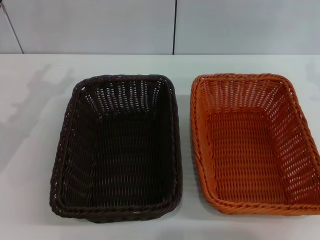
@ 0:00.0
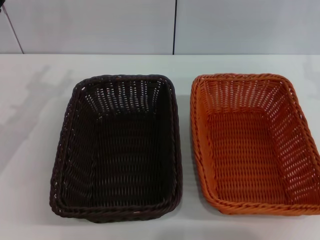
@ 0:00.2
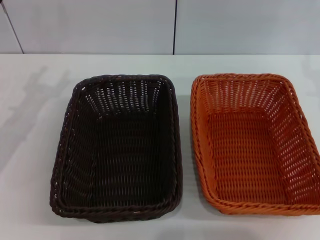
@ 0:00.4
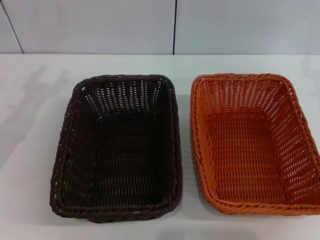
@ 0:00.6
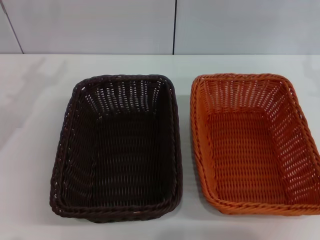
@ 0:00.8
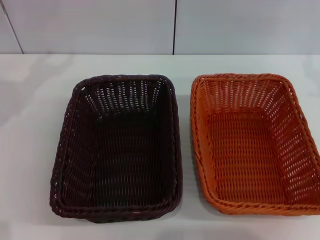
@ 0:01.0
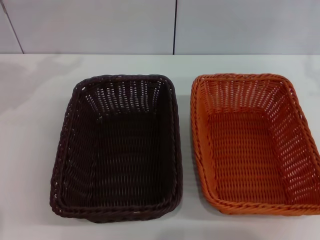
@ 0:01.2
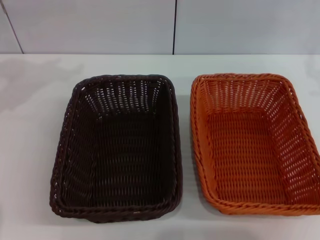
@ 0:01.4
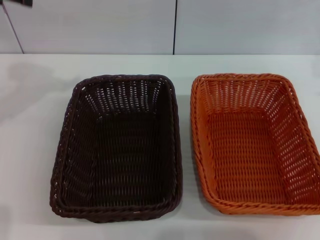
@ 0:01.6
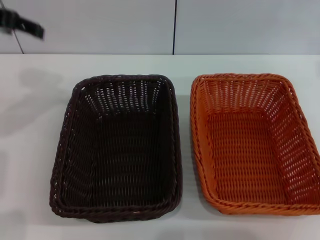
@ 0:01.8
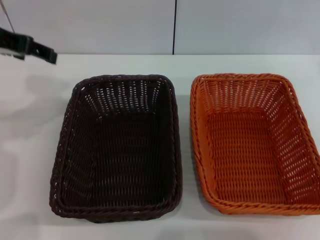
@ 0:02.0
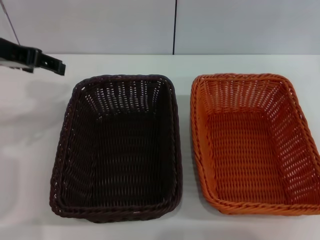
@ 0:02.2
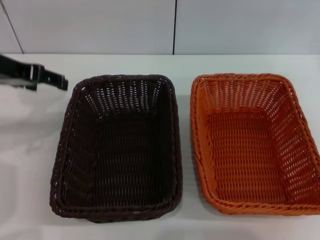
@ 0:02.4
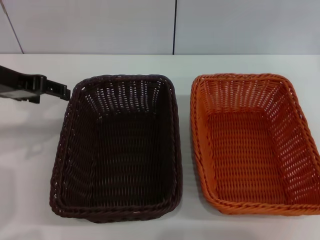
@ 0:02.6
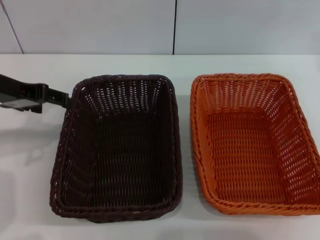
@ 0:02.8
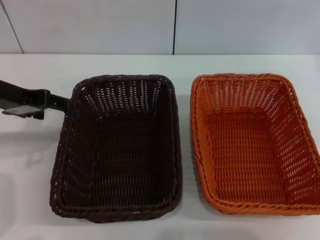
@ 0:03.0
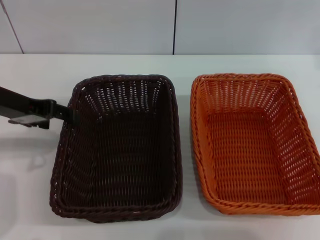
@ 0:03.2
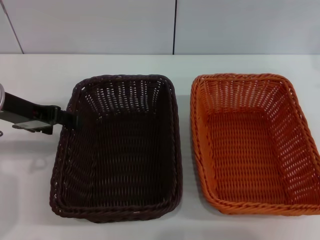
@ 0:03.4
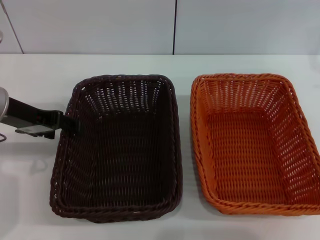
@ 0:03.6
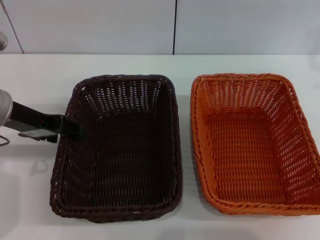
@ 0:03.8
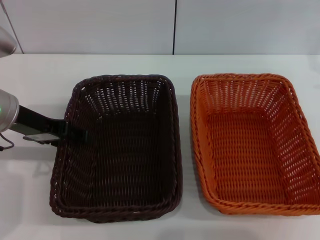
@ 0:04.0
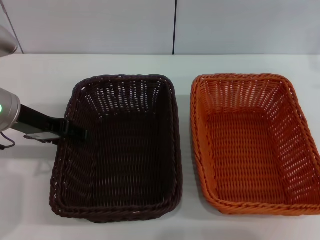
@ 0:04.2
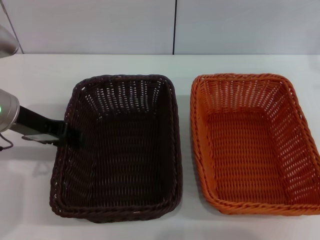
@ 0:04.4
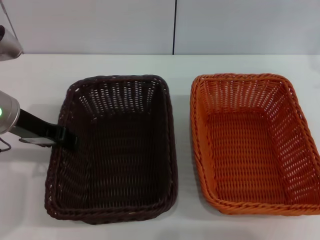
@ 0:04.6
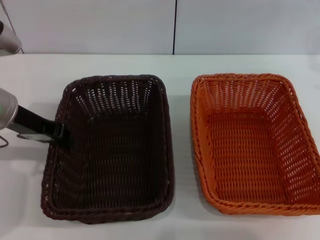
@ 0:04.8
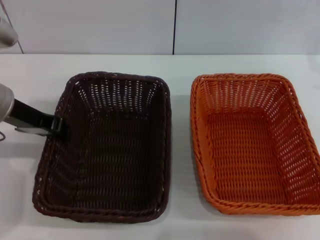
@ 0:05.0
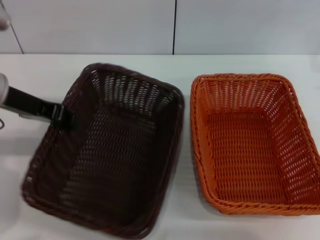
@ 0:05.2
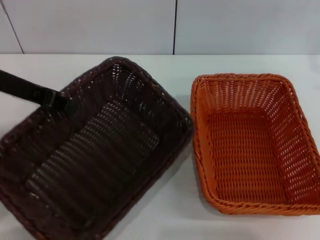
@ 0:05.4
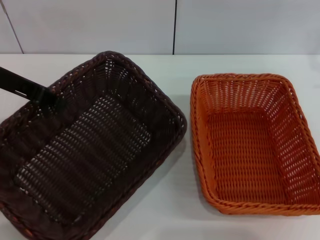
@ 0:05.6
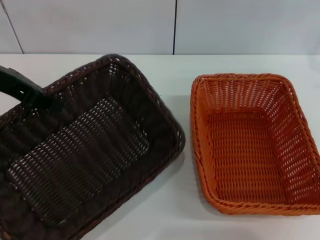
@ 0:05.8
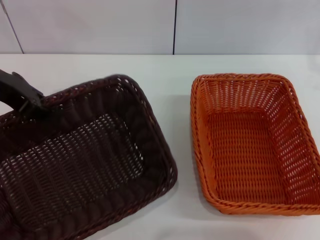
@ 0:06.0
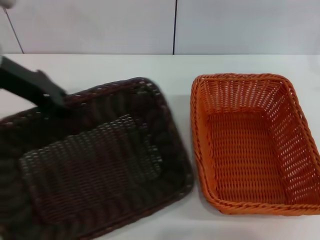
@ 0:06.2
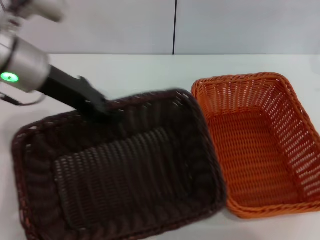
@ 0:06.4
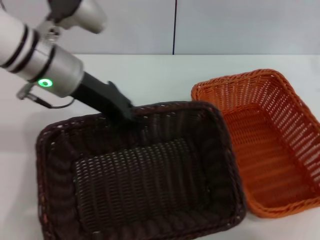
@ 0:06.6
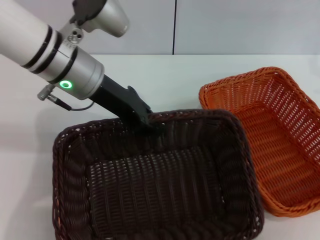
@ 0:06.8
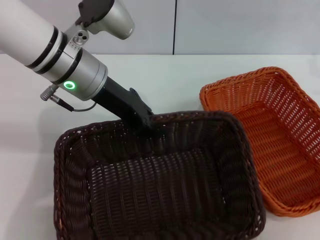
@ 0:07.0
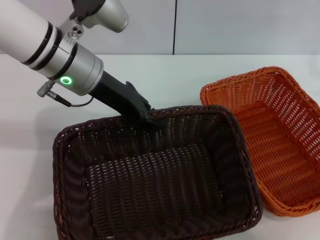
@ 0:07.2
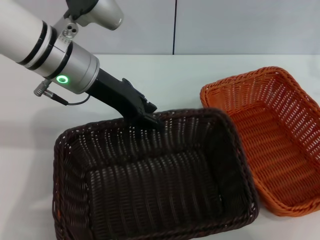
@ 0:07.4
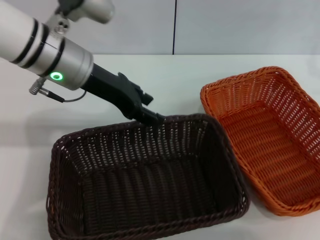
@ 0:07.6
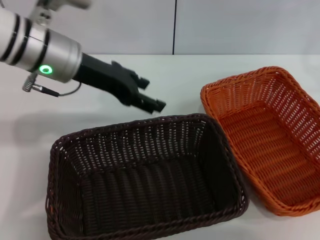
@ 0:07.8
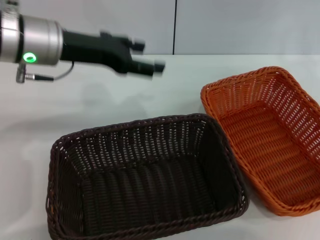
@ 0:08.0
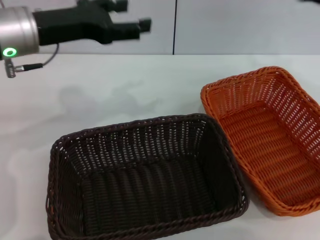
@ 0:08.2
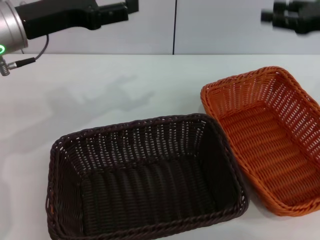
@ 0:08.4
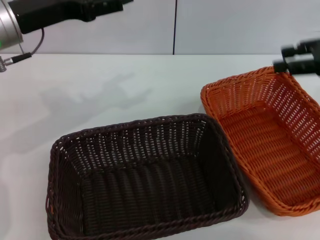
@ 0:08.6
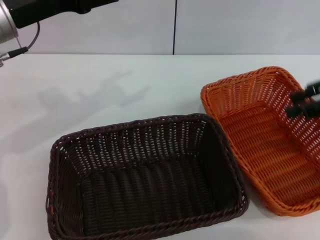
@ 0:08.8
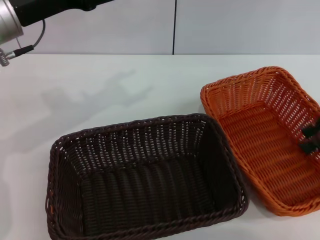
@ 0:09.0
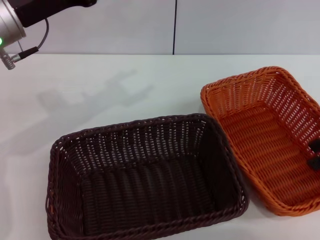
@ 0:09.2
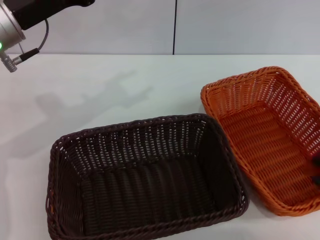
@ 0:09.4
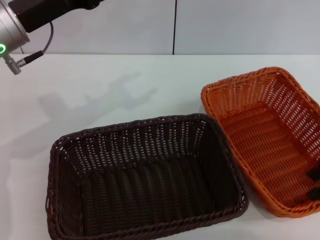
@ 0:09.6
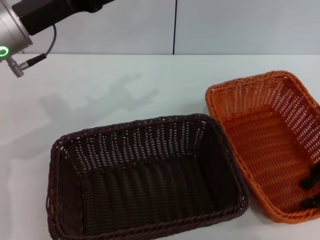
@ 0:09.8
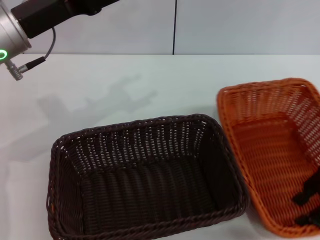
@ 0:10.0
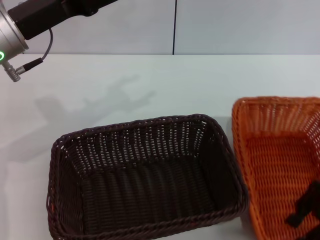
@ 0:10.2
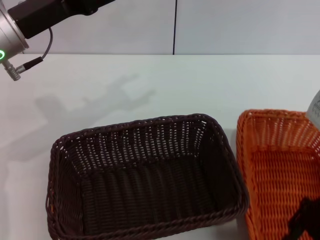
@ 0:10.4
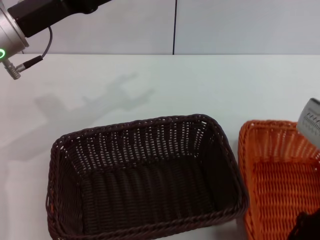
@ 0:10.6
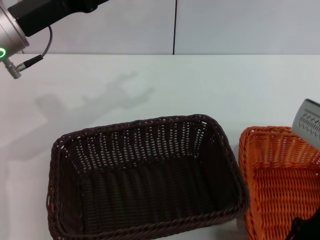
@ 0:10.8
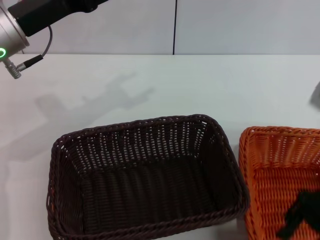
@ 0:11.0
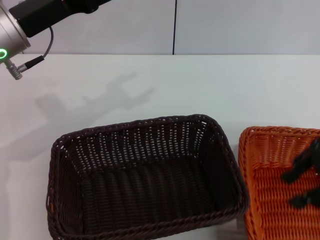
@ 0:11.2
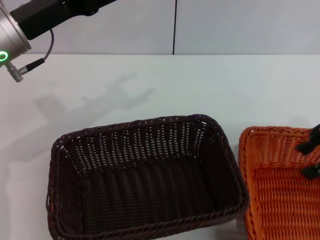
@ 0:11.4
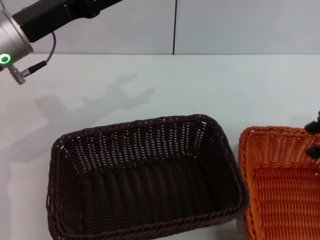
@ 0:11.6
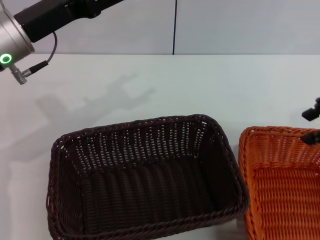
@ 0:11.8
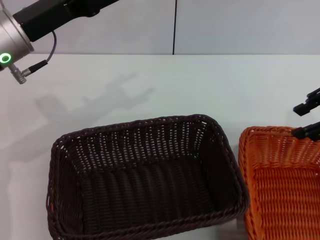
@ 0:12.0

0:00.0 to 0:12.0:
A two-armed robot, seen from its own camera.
Step, 0:00.0 to 0:05.2: Pick up the dark basket with the left gripper.
Step, 0:05.4 to 0:07.6: Place the dark basket in the center of view with the left gripper.
0:00.0 to 0:01.6: The left gripper heads upward, covering approximately 15 cm.
0:01.6 to 0:03.0: The left gripper shifts approximately 10 cm downward and backward.
0:03.0 to 0:04.4: The grippers make only small movements.
0:04.4 to 0:06.0: The left gripper shifts roughly 10 cm upward, and closes its fingers.
0:06.0 to 0:07.6: The left gripper travels to the right by some 10 cm.
0:07.6 to 0:09.0: The left gripper goes roughly 5 cm to the left, and opens its fingers. Meanwhile the right gripper moves upward, about 5 cm.
0:09.0 to 0:10.4: The right gripper moves to the left, downward and backward, roughly 10 cm.
0:10.4 to 0:12.0: The right gripper heads upward and forward, covering roughly 10 cm.

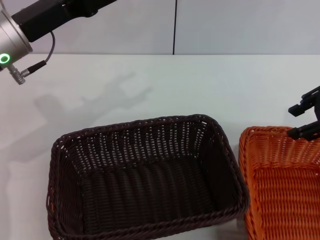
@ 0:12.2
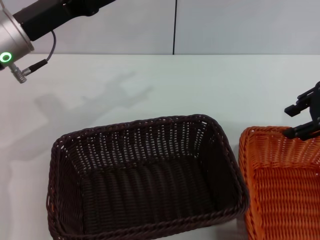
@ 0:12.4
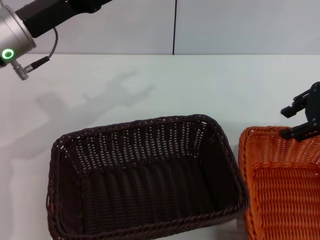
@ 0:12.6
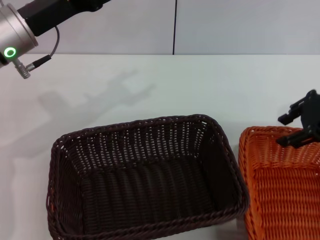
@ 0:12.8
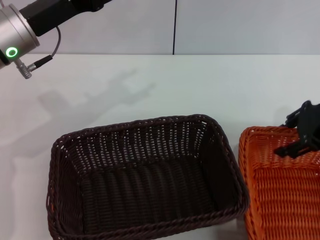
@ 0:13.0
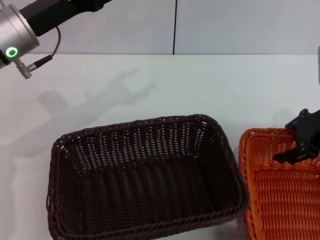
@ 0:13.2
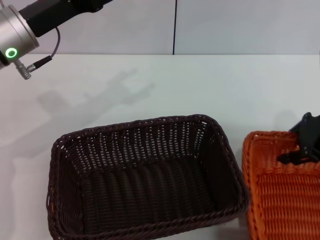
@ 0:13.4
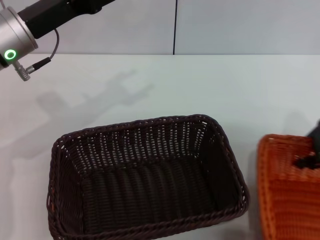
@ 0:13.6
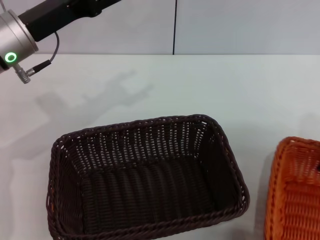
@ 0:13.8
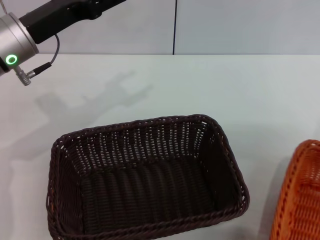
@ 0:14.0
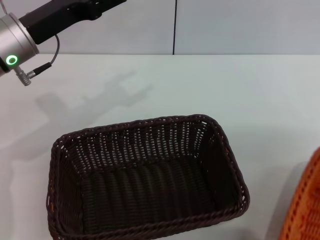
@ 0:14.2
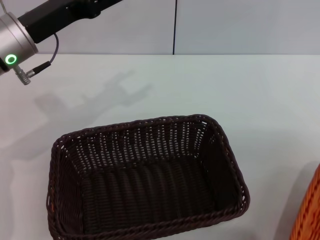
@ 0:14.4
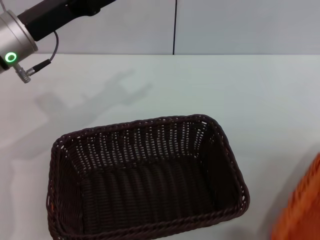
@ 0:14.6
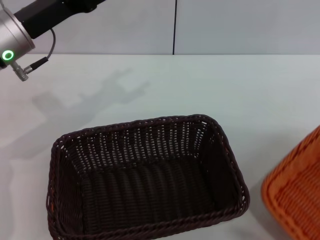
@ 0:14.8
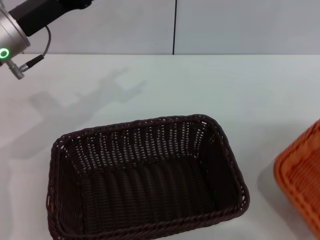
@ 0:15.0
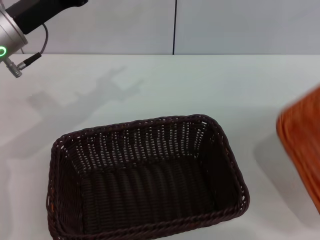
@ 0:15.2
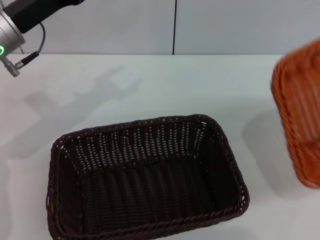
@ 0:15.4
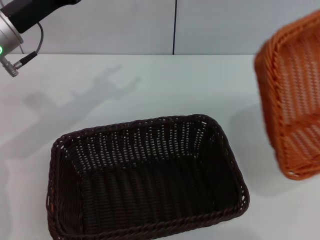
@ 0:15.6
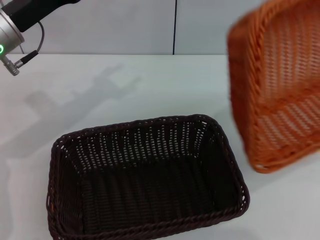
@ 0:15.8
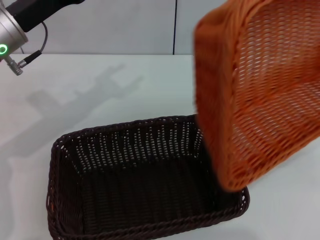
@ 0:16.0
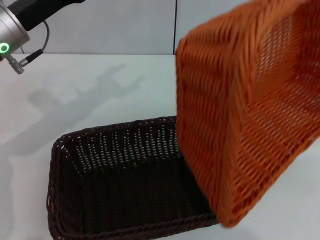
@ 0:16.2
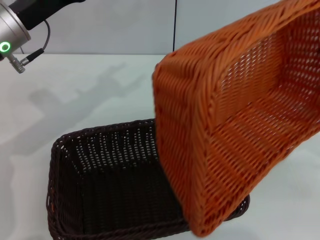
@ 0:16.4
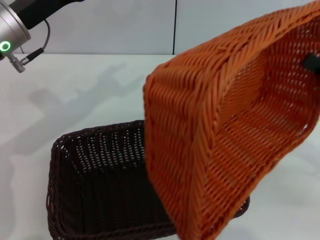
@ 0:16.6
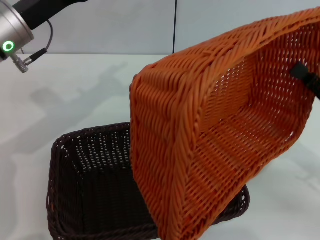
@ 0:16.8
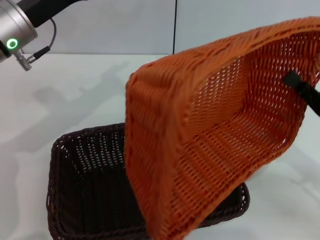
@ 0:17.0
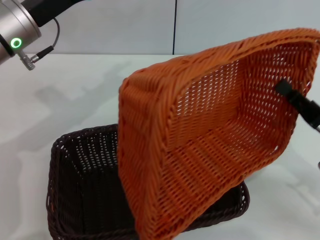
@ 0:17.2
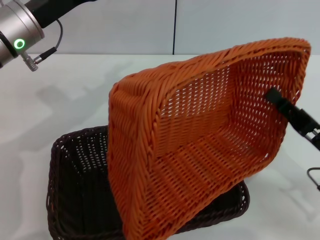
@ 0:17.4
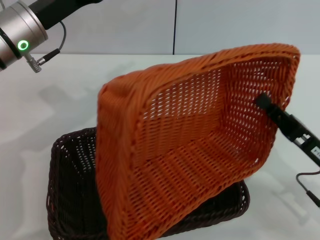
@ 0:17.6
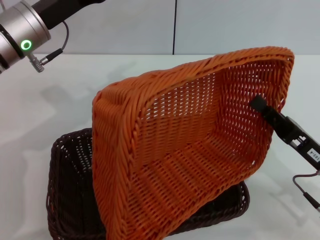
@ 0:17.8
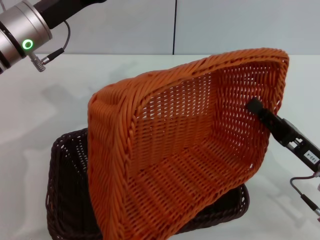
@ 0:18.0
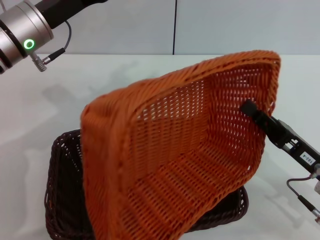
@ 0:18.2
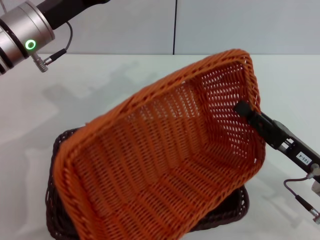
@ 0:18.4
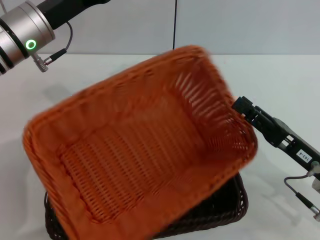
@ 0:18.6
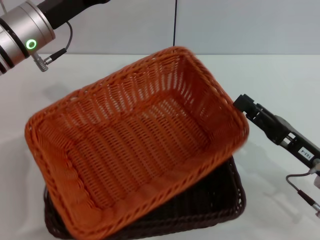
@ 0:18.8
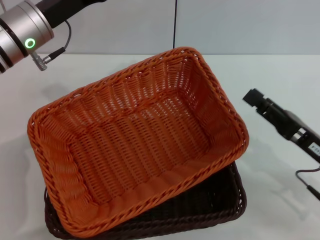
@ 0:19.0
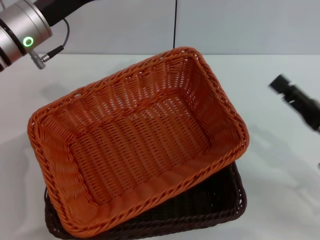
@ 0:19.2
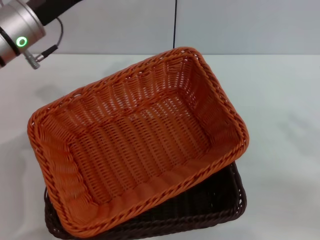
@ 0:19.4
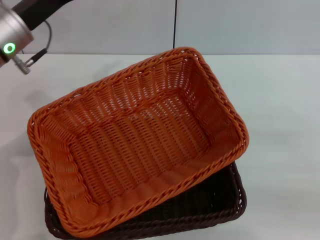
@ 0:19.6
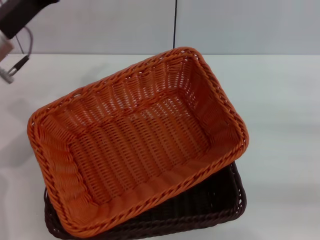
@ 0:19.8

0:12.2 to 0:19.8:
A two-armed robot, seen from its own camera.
Step, 0:14.2 to 0:18.8: Place the light basket on the dark basket with the right gripper.
0:12.2 to 0:13.8: The right gripper moves downward, approximately 5 cm, and closes.
0:13.8 to 0:15.2: The right gripper is displaced to the right, upward and backward by about 20 cm, and closes its fingers.
0:15.2 to 0:16.8: The right gripper shifts roughly 25 cm to the left and downward.
0:16.8 to 0:18.2: The right gripper shifts some 5 cm to the left.
0:18.2 to 0:19.8: The left gripper changes place by about 5 cm; the right gripper travels to the right by approximately 15 cm, and opens.
